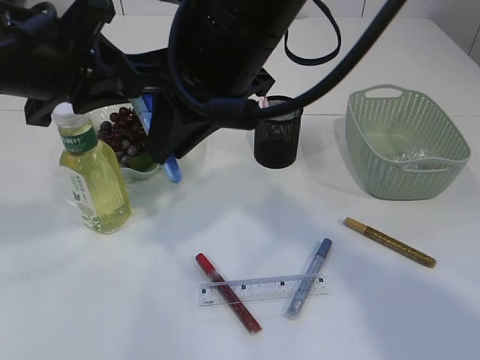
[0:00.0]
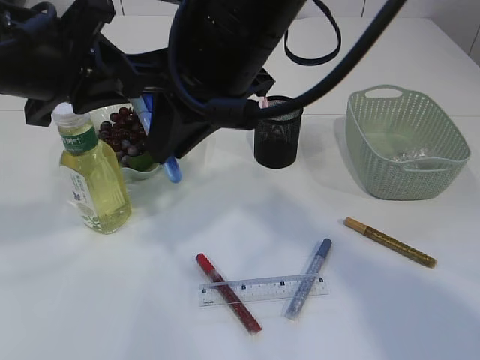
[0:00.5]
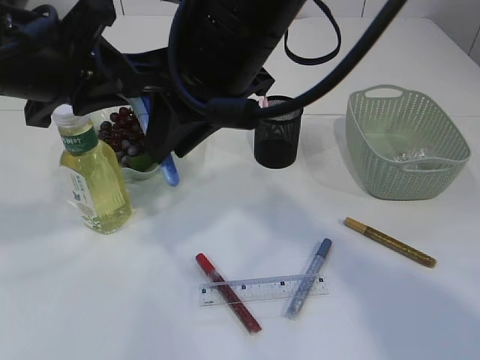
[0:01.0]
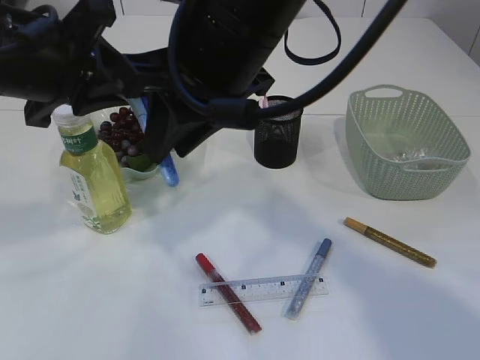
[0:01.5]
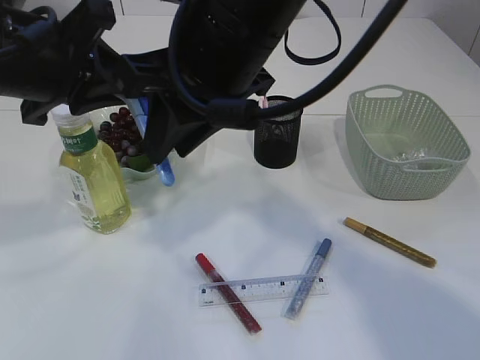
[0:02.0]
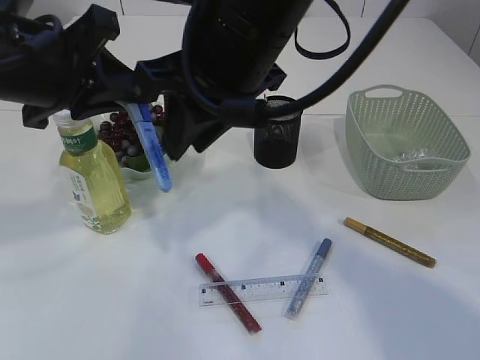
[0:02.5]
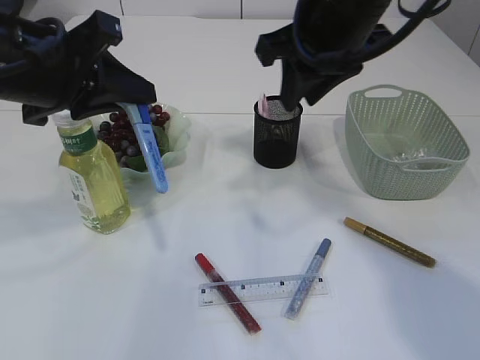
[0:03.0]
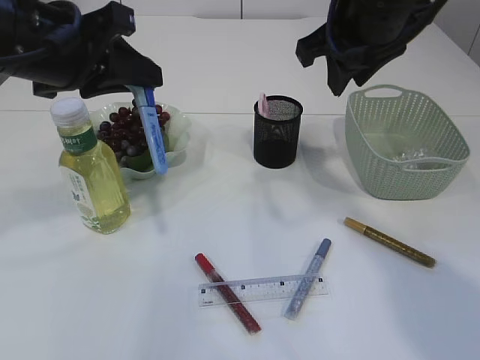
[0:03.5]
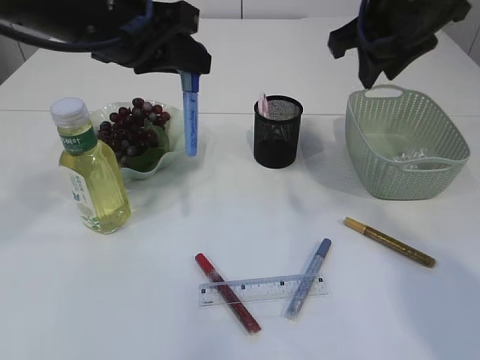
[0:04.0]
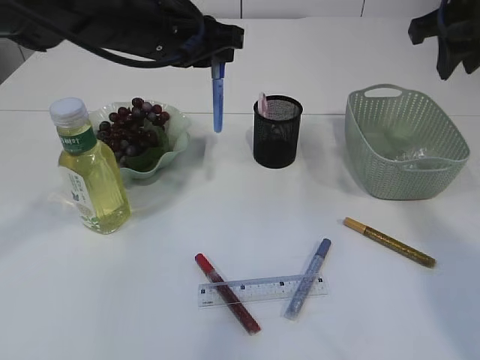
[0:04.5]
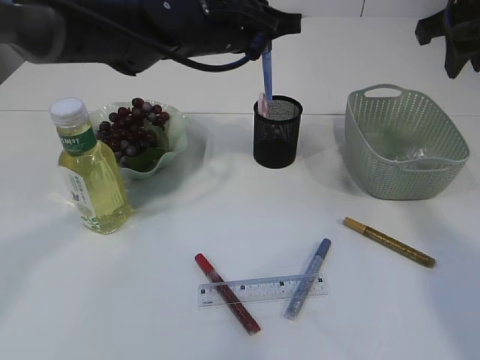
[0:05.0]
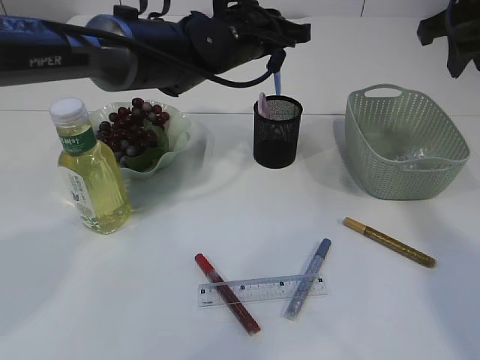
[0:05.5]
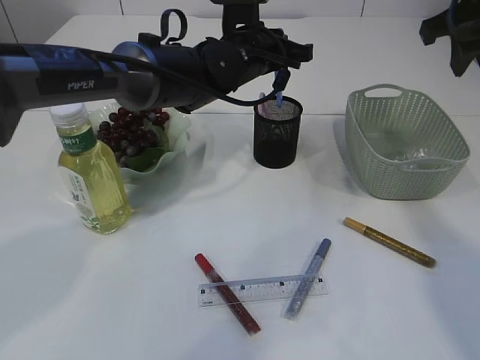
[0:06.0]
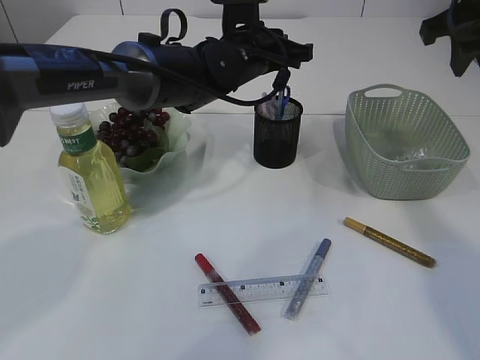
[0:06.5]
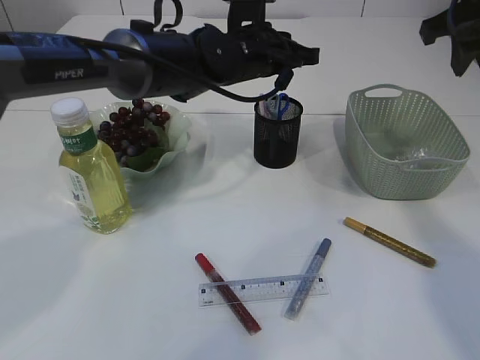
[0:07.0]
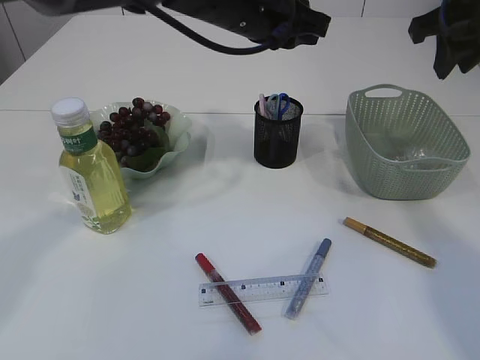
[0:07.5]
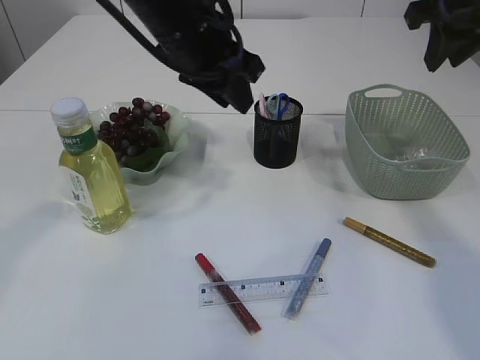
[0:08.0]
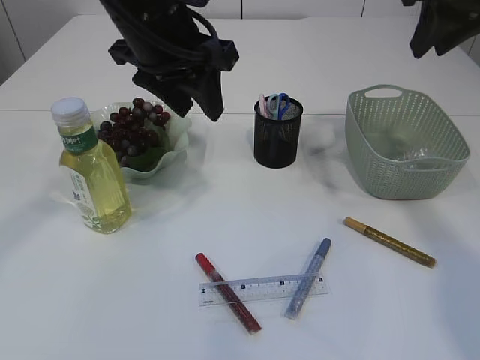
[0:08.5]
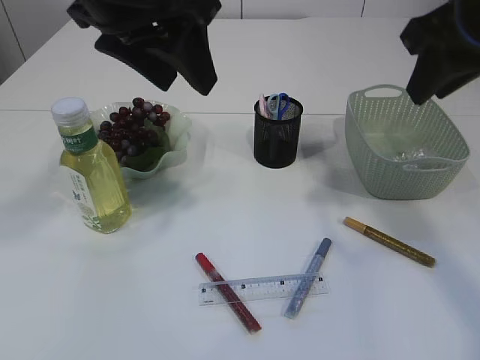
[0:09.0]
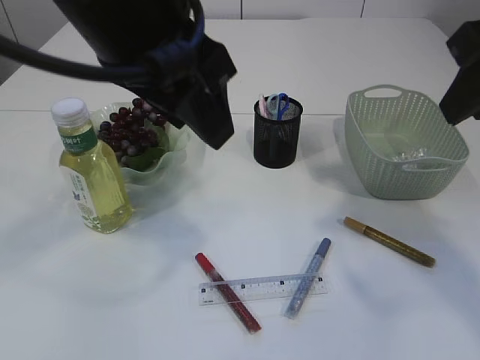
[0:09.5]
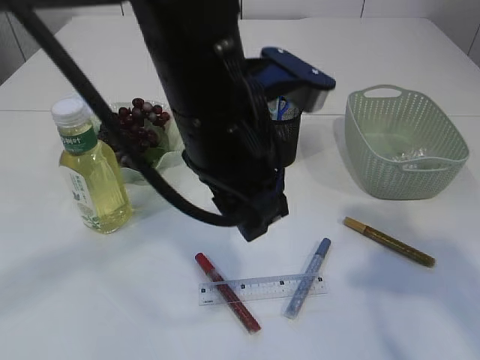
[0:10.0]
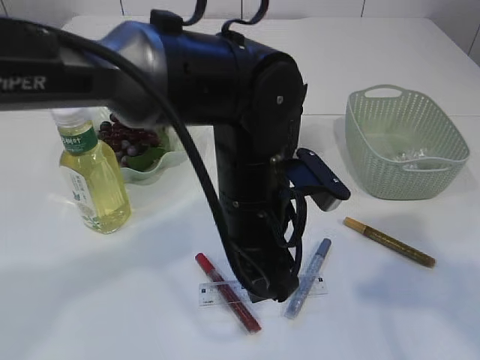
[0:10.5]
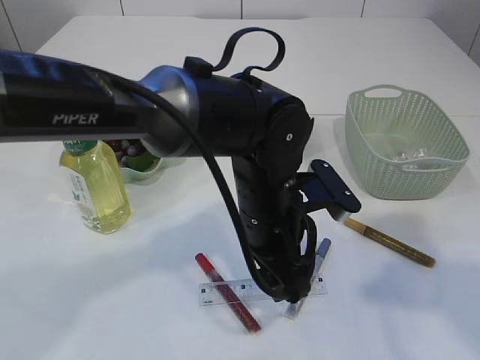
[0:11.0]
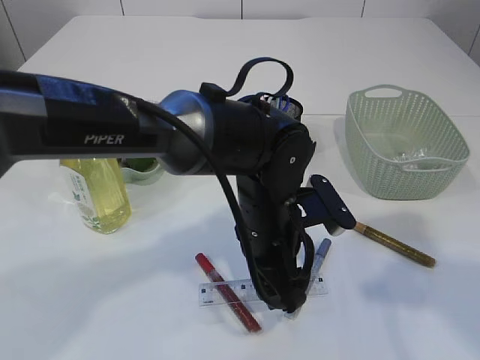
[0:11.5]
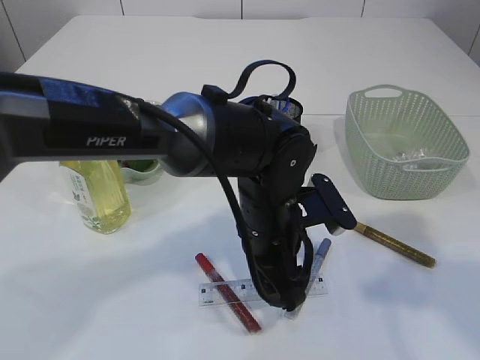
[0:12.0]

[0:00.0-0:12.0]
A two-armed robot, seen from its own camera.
Step, 0:00.0 to 0:03.0: Hand over the blue scissors.
Step, 0:03.5 to 0:07.0: Place the blue scissors into the pen holder.
0:00.0 to 0:02.0: Neither gripper changes place.
0:02.0 to 0:04.0: The right gripper moves to the right and forward, roughly 20 cm. Meanwhile the left gripper travels forward by about 5 cm.
0:04.0 to 0:06.0: The right gripper moves to the right, some 10 cm. Meanwhile the left gripper goes some 20 cm to the right, forward and downward.
0:06.0 to 0:08.0: The left gripper shifts some 15 cm backward, upward and to the left, and opens.
0:08.0 to 0:10.0: The left gripper travels backward by approximately 15 cm. The right gripper travels backward by some 20 cm.
0:10.0 to 0:12.0: The left gripper is displaced downward by about 15 cm.

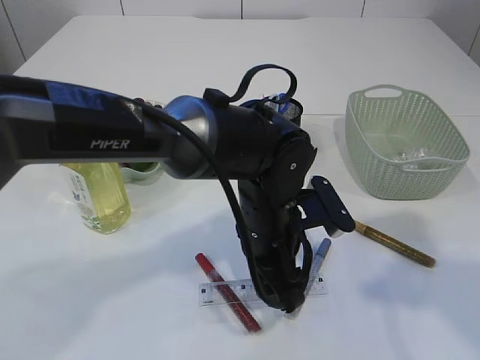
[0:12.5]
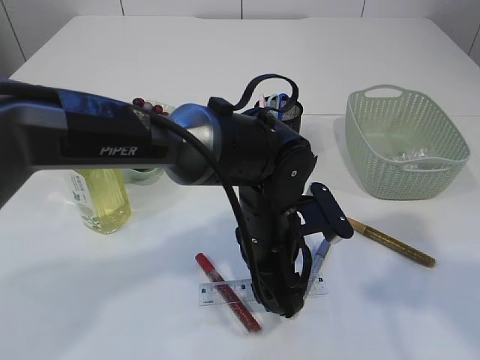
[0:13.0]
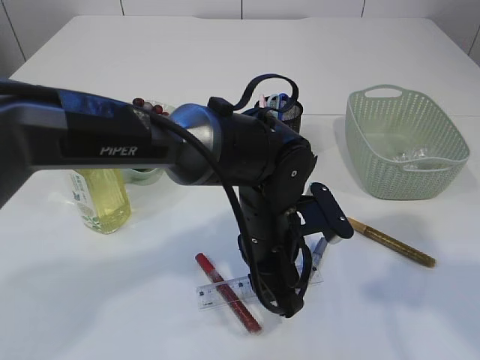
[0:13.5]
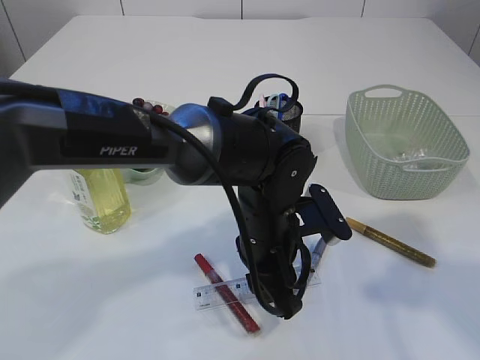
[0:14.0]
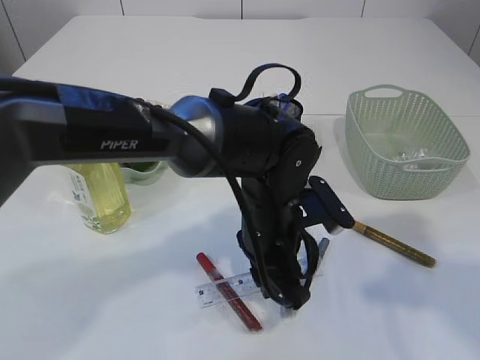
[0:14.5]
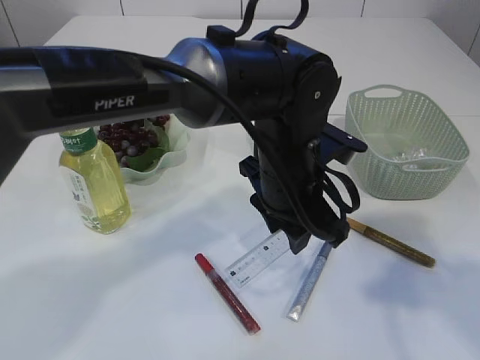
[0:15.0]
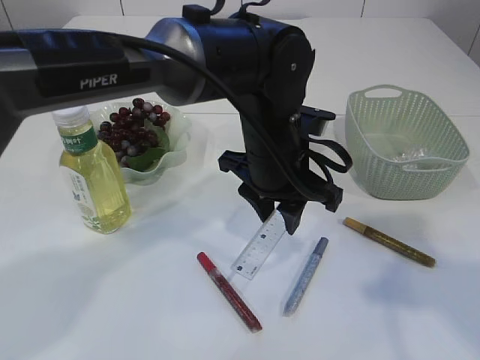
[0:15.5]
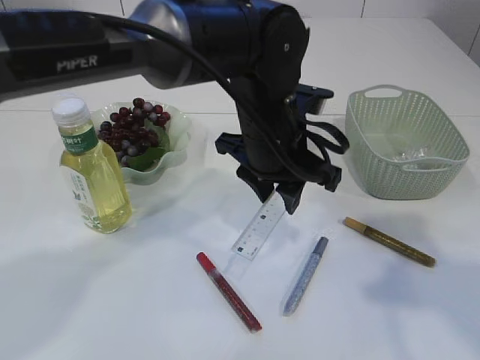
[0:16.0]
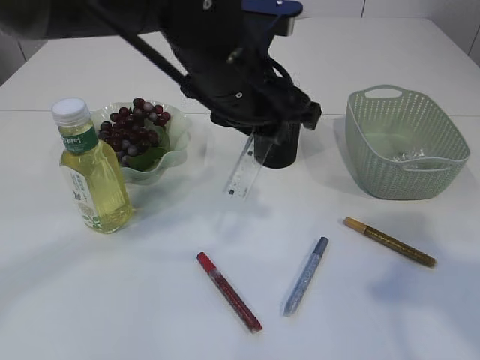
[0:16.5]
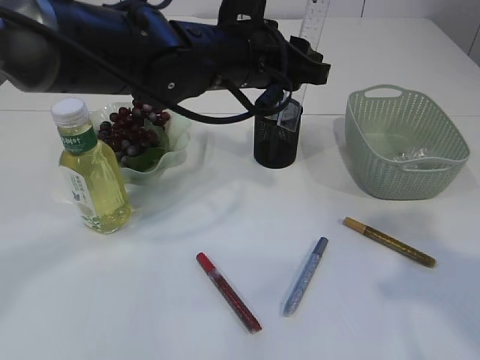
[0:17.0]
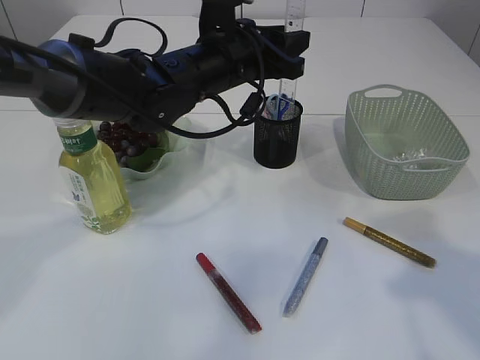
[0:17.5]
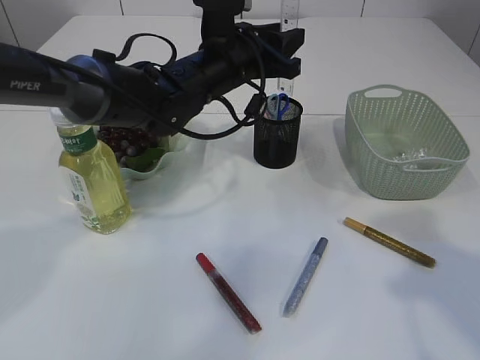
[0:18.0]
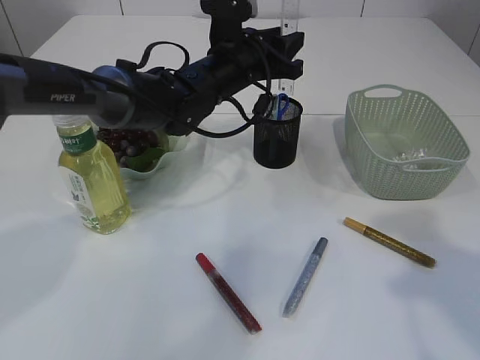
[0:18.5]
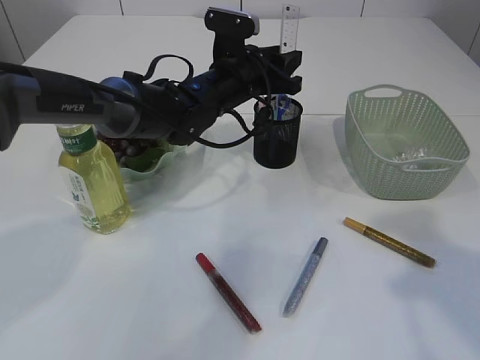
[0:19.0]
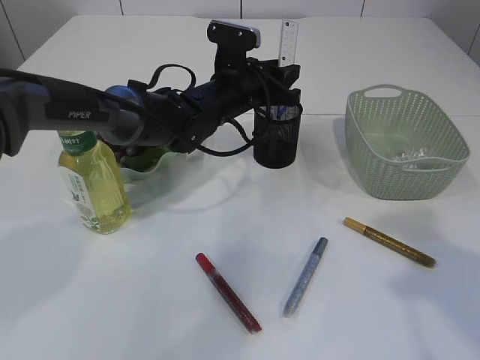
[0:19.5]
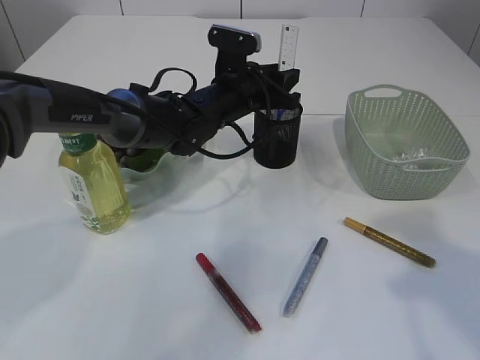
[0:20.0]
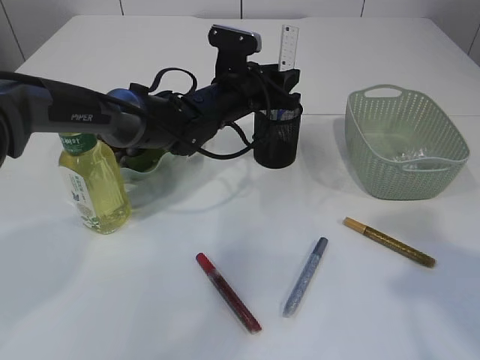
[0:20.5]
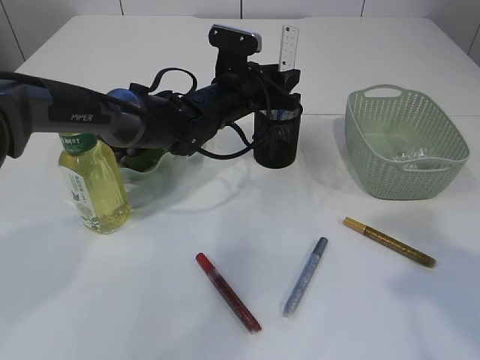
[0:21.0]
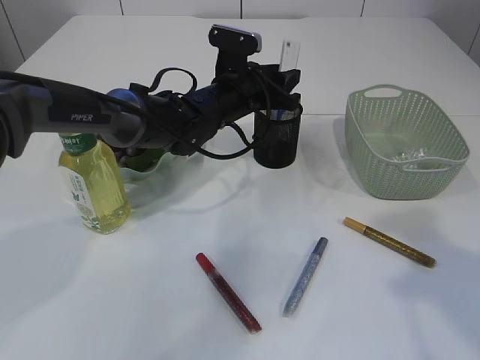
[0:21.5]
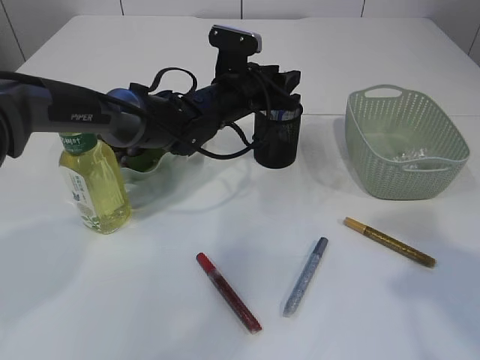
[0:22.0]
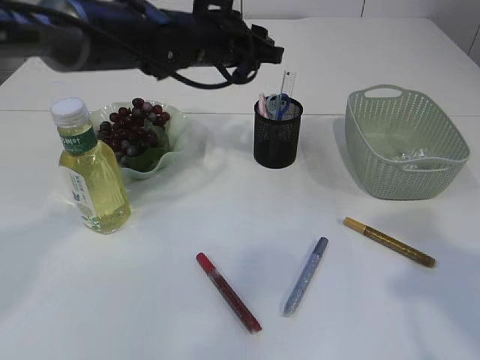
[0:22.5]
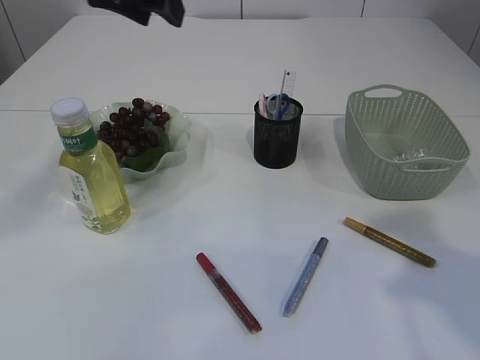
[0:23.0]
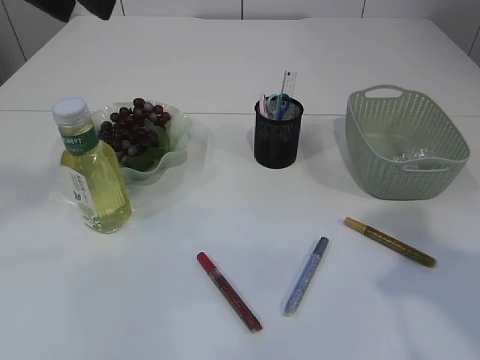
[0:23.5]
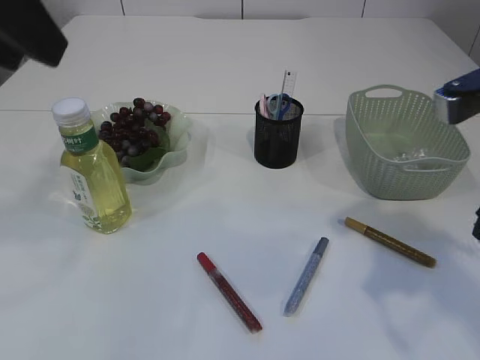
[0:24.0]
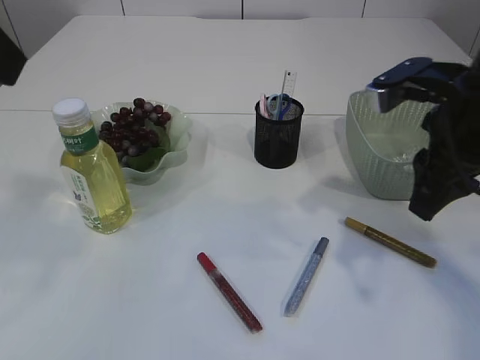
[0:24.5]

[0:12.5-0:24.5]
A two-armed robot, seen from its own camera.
Step, 0:12.5 to 0:15.0: pick up the ruler.
Step, 0:15.5 to 0:22.0: Place the ruler into the pen holder.
0:12.5 to 0:14.5: The left gripper closes.
0:14.5 to 0:16.5: The left gripper moves upward, some 15 cm.
0:16.5 to 0:18.5: The left gripper shifts approximately 15 cm forward and downward.
0:18.5 to 0:20.5: The grippers stay close to where they were, moving slightly.
0:20.5 to 0:22.5: The left gripper travels upward by about 10 cm.
0:22.5 to 0:24.5: The right gripper goes approximately 15 cm forward and downward; the left gripper heads backward, upward and to the left, covering about 35 cm.

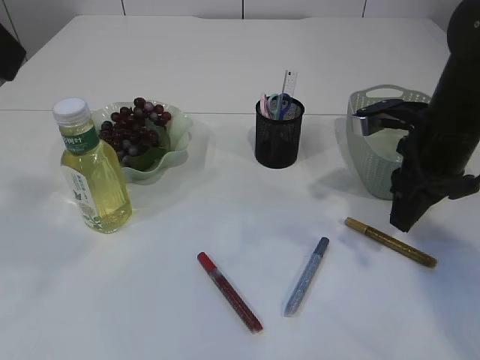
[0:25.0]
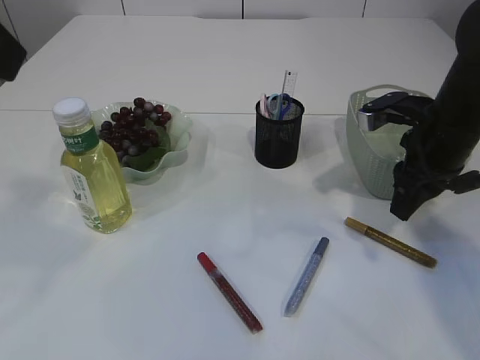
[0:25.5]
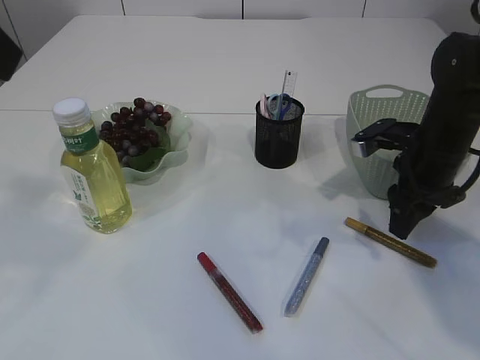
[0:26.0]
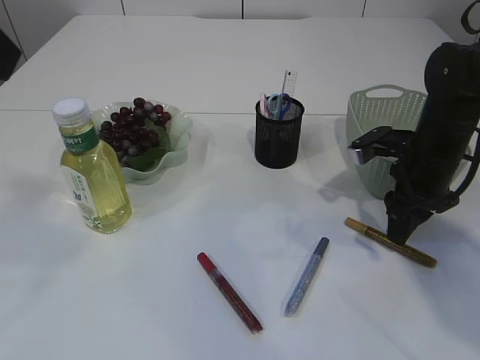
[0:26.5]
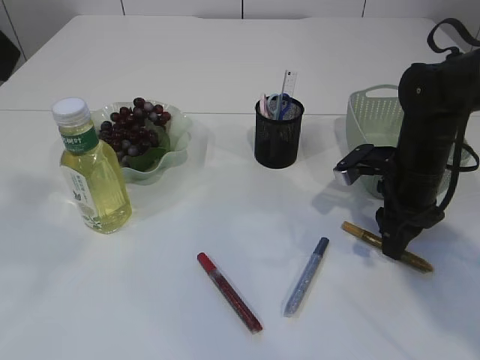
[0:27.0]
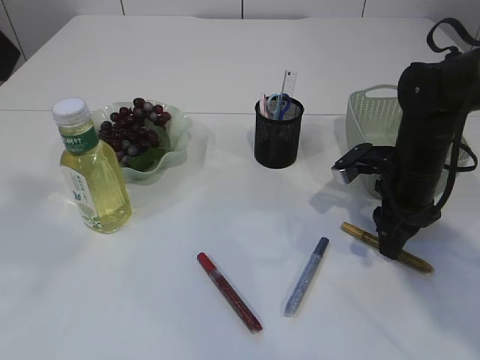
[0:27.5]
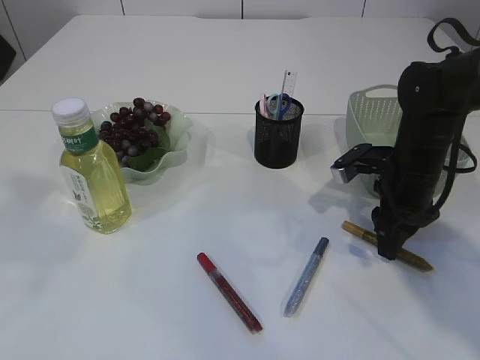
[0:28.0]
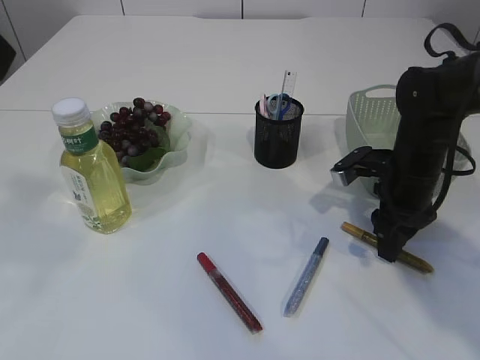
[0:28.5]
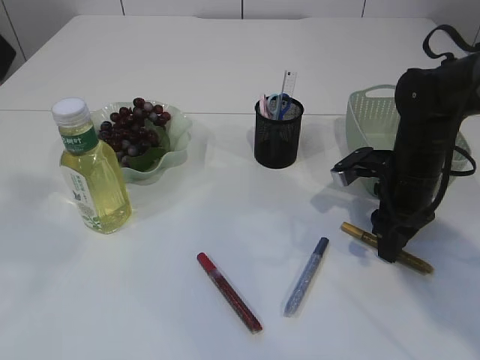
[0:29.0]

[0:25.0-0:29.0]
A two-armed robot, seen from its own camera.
0:25.0 to 0:27.0: The right gripper travels downward by approximately 10 cm.
0:27.0 to 0:29.0: Both grippers stay about where they are.
